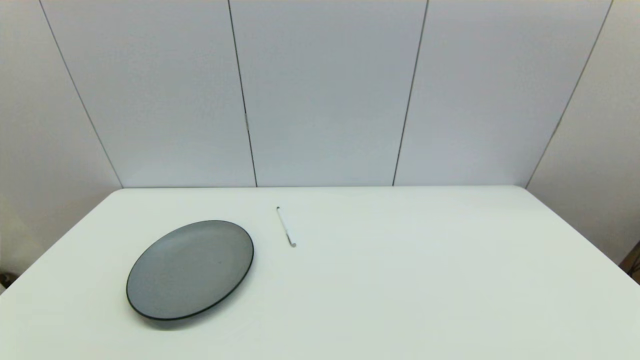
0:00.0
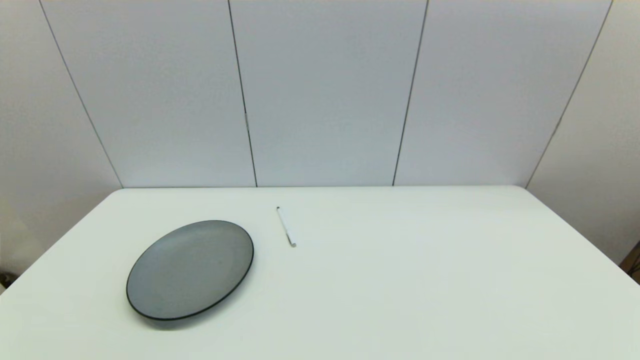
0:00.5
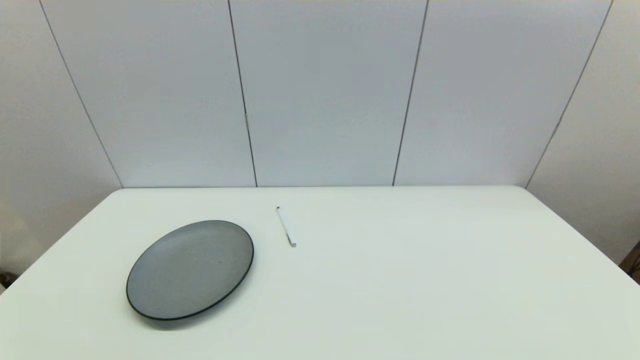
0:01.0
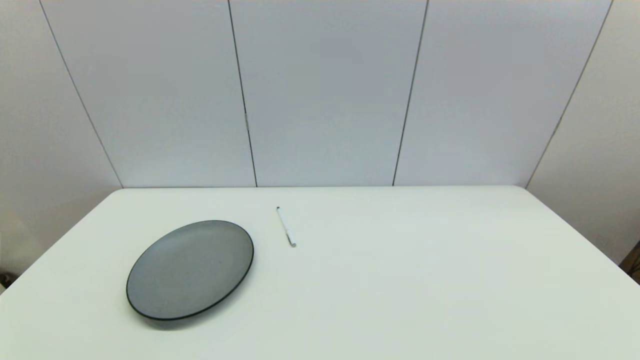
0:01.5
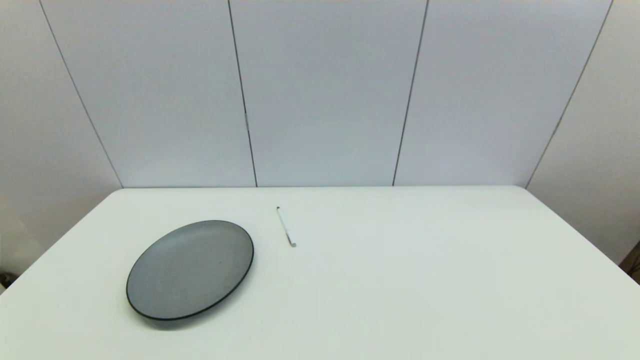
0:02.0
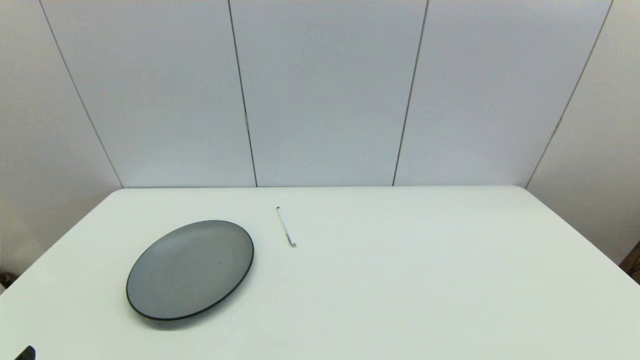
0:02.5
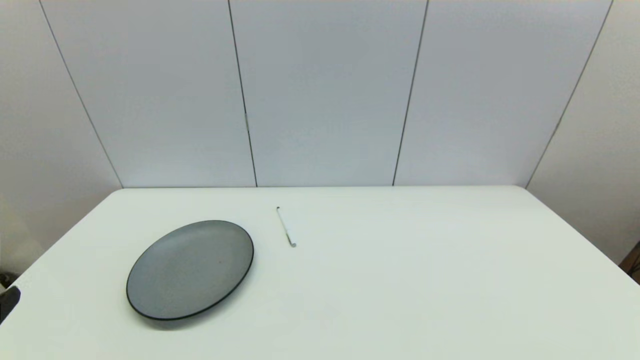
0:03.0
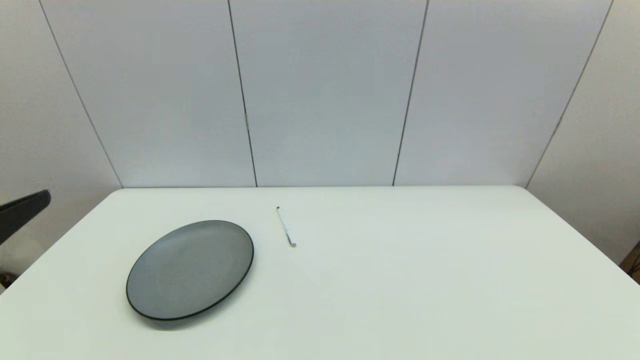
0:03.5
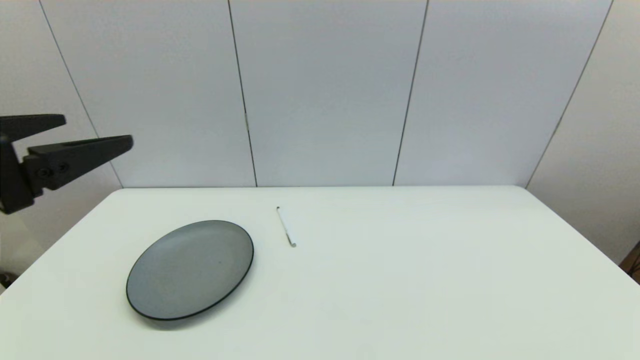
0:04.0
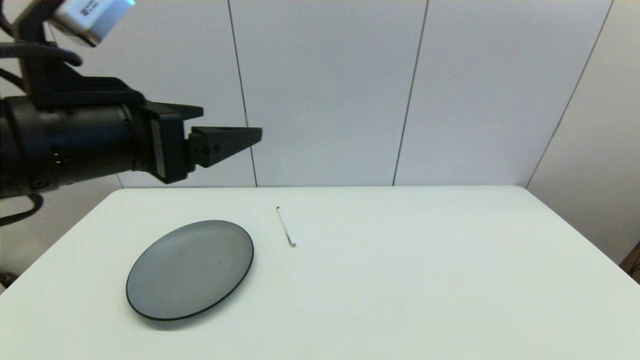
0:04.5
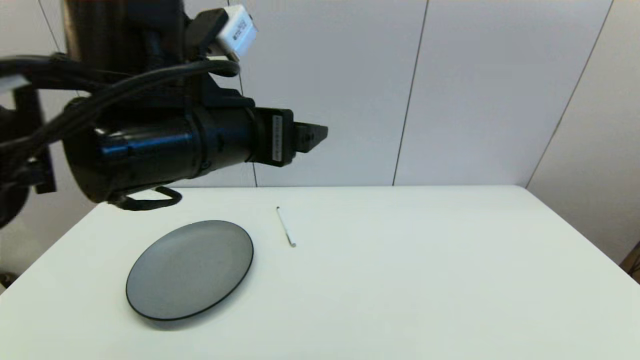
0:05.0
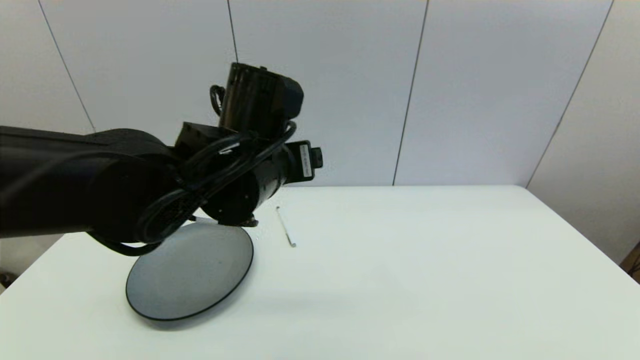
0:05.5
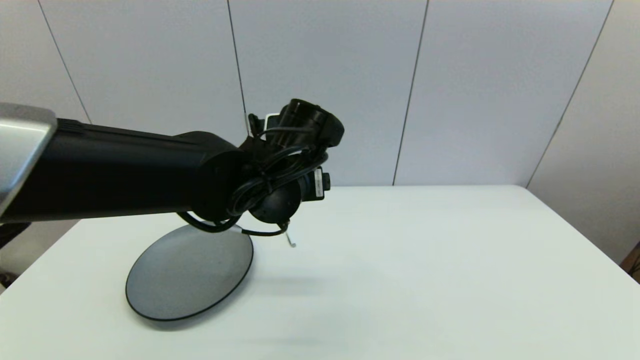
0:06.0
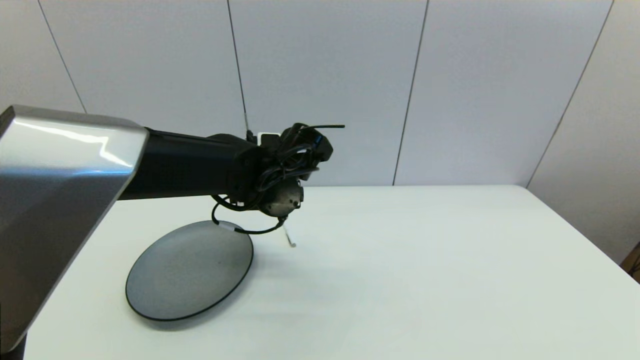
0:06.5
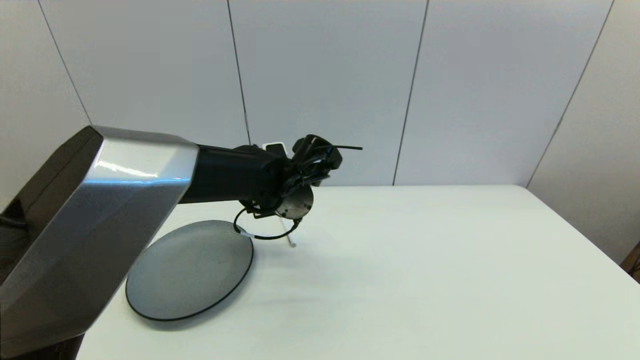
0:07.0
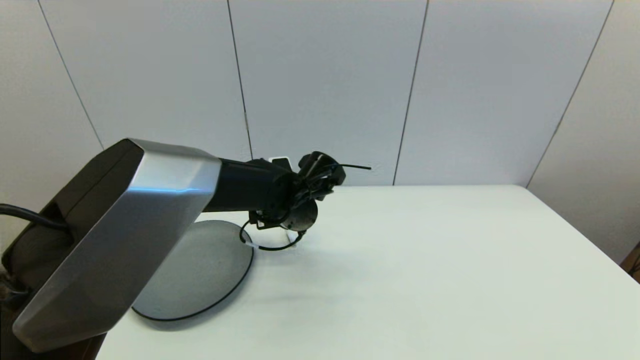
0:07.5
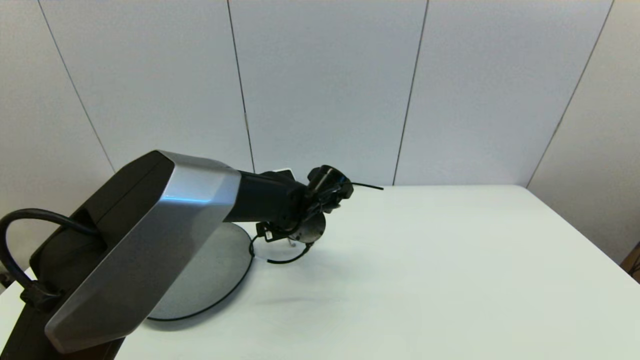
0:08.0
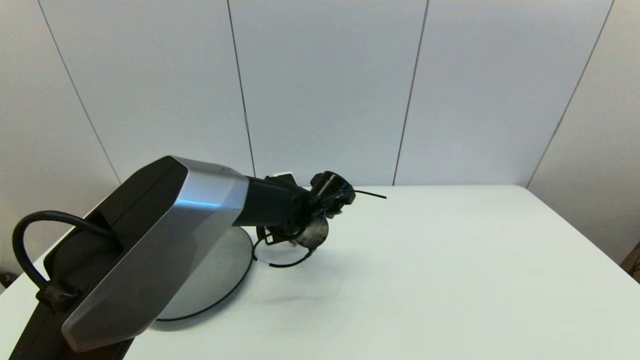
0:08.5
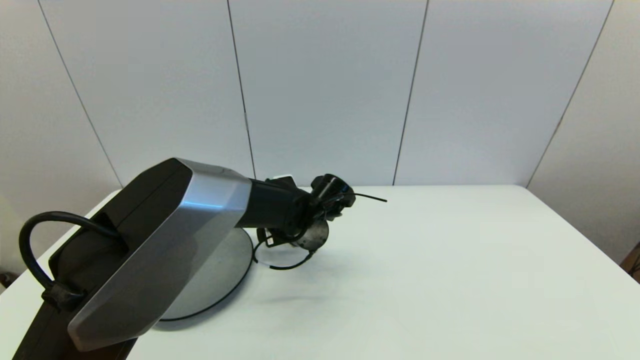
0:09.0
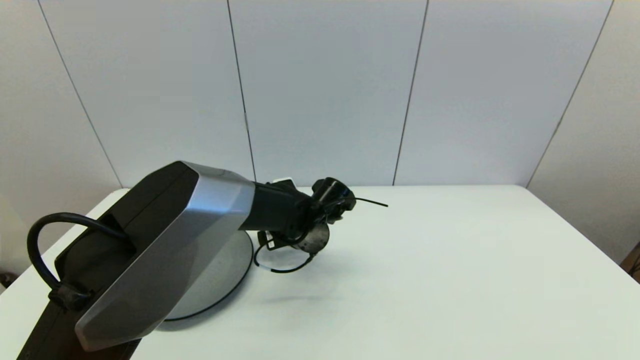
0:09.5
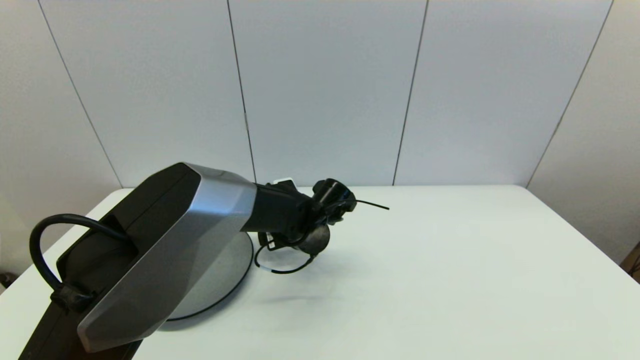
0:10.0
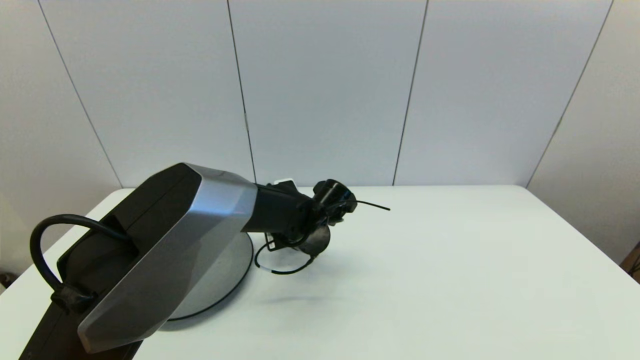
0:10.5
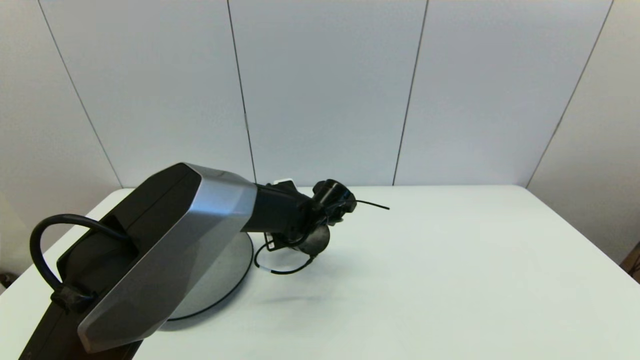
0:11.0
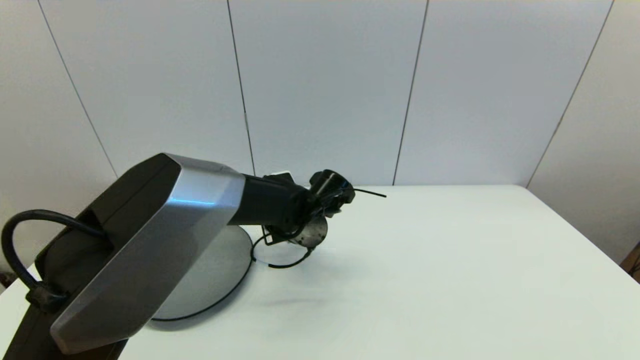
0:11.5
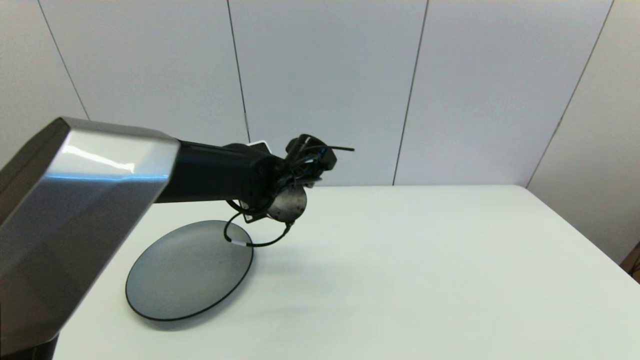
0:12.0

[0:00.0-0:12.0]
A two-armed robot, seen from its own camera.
Task of the whole recording: put the pen in the designated position.
Step, 0:02.5 to 0:10.5: Grasp the sign pen with left gripper.
0:00.0 to 0:02.0: Both grippers stay put.
0:02.0 to 0:04.0: The left gripper is displaced upward and forward by about 25 cm.
0:04.0 to 0:06.0: The left gripper goes about 30 cm to the right, forward and downward.
0:06.0 to 0:08.0: The left gripper moves downward and forward, about 15 cm.
0:08.0 to 0:10.0: There are only small adjustments of the grippers.
0:10.0 to 0:12.0: The left gripper moves upward, about 10 cm, and closes up.

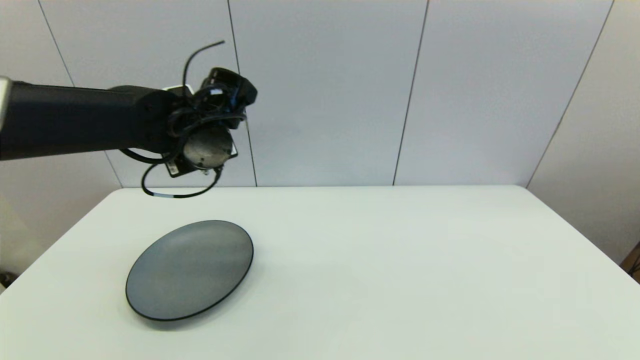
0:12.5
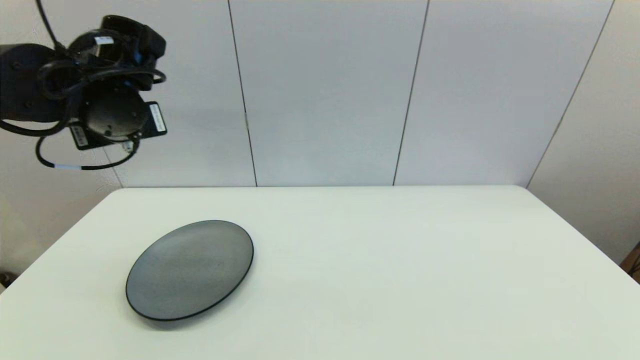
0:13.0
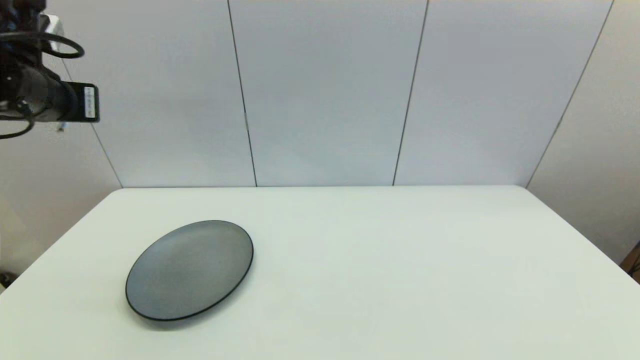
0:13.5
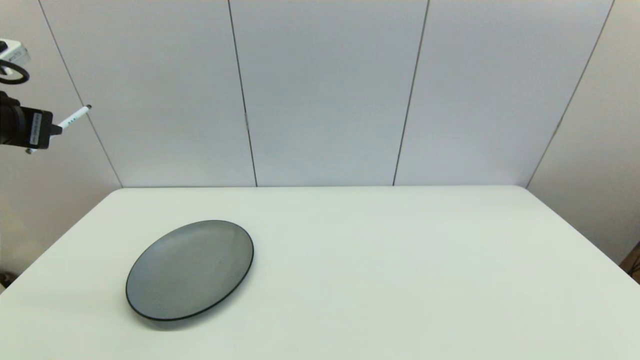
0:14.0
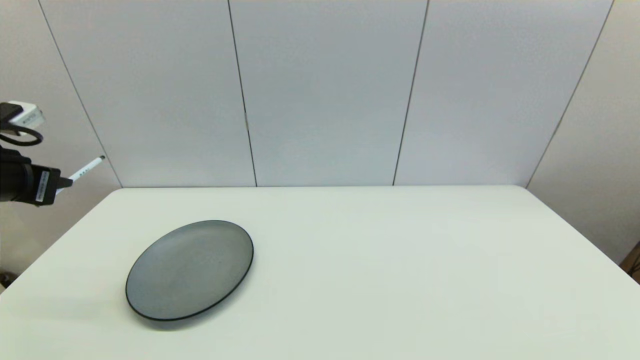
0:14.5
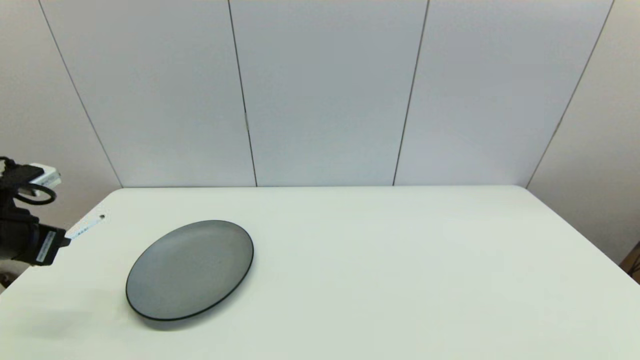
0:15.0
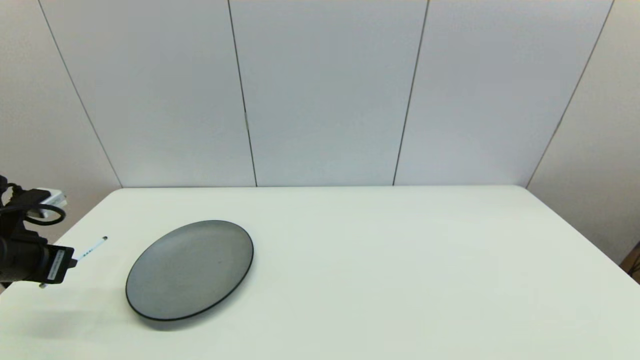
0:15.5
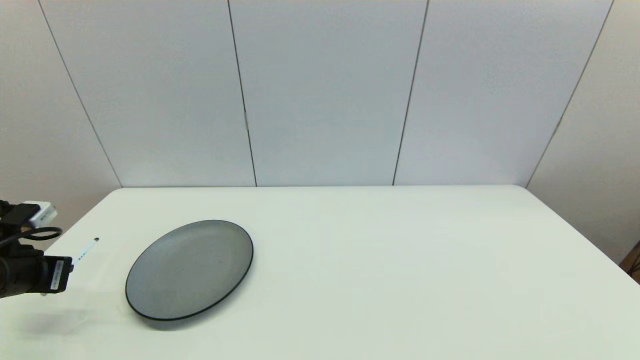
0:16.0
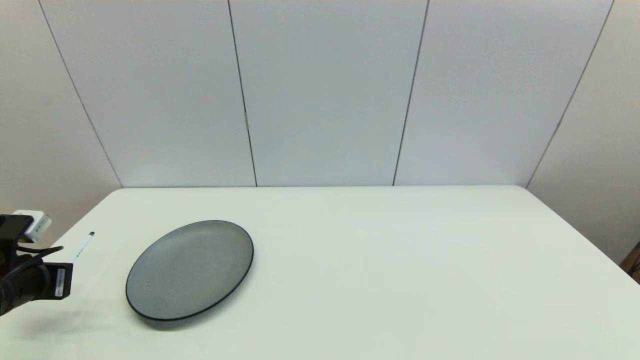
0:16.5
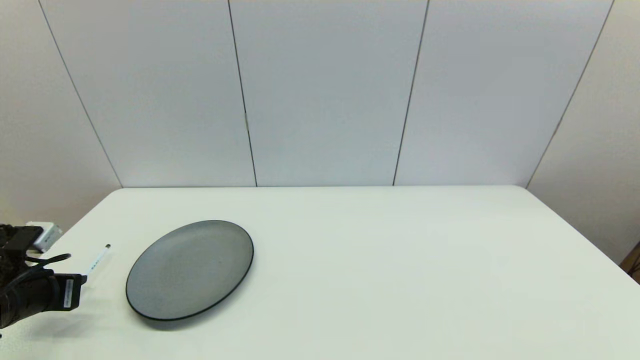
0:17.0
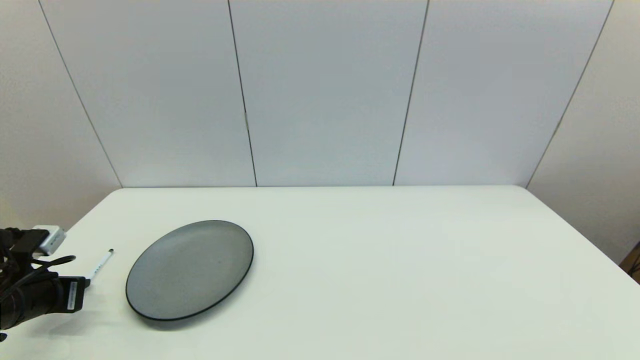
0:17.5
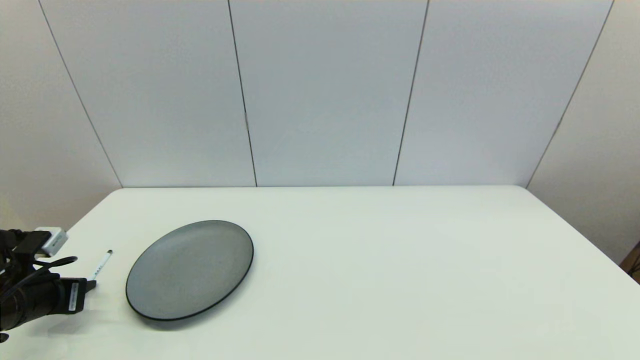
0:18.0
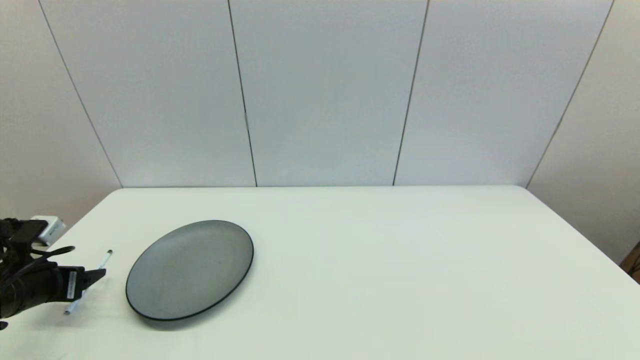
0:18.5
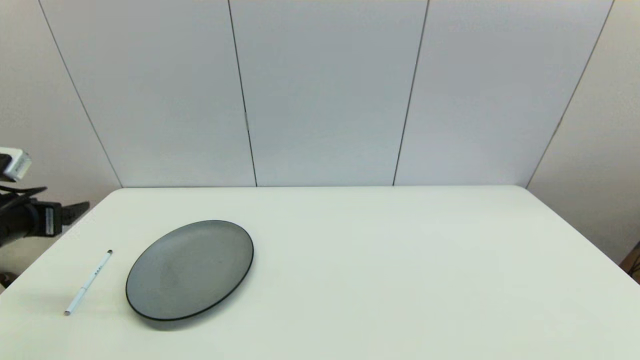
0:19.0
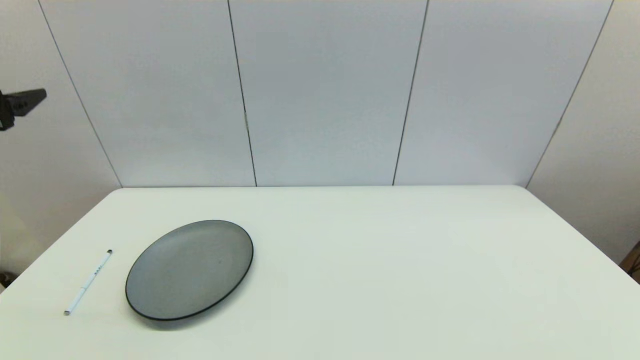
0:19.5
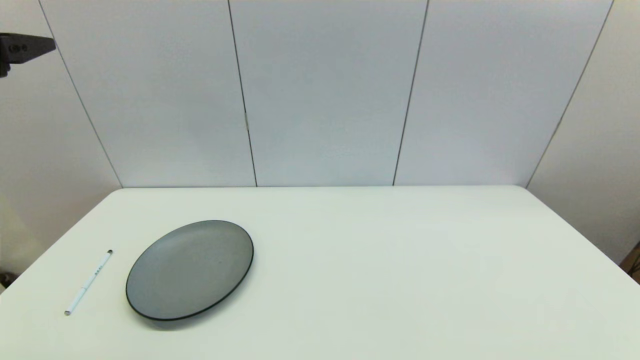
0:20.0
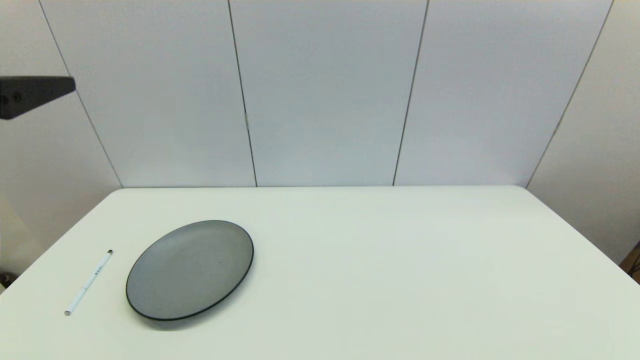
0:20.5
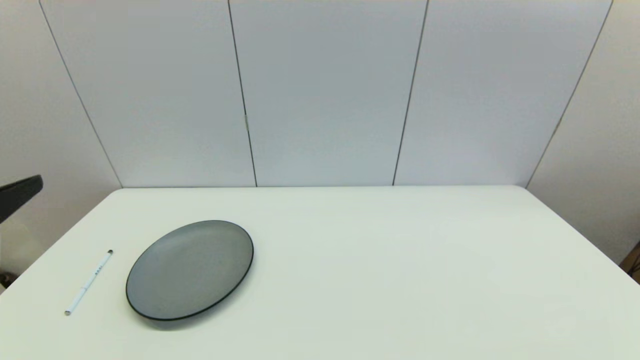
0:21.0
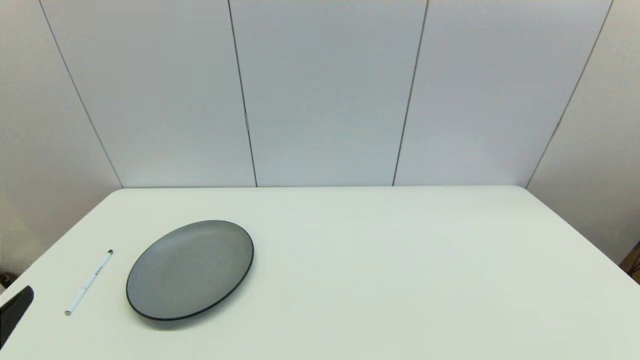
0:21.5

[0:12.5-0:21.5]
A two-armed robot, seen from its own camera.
Task of the whole recording: put the pen in the designated position.
Step, 0:12.5 to 0:18.0: Place the sign pen on the table with left gripper.
0:12.5 to 0:14.5: The left gripper is displaced to the left by about 25 cm.
0:14.5 to 0:17.0: The left gripper moves downward, some 15 cm.
0:17.0 to 0:19.5: The left gripper heads upward, covering some 20 cm, and opens its fingers.
0:19.5 to 0:21.5: The left gripper heads backward, downward and to the right, covering roughly 30 cm.
